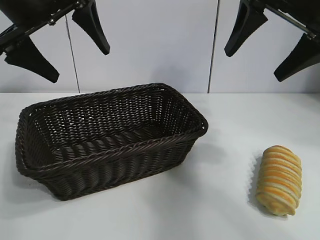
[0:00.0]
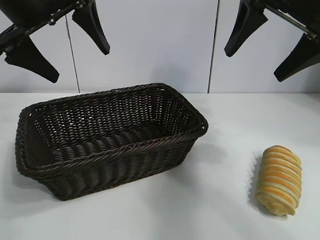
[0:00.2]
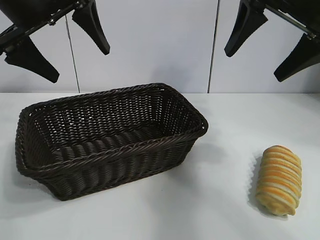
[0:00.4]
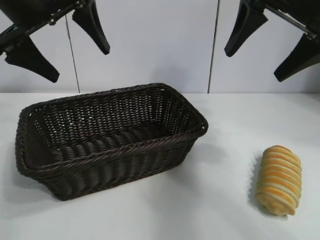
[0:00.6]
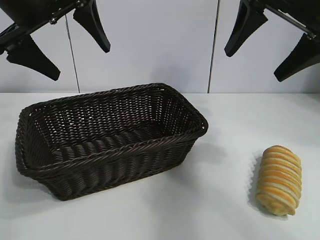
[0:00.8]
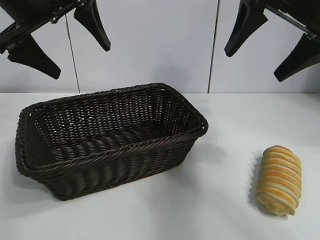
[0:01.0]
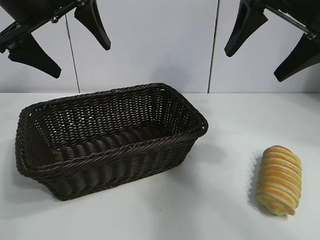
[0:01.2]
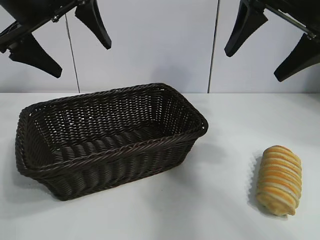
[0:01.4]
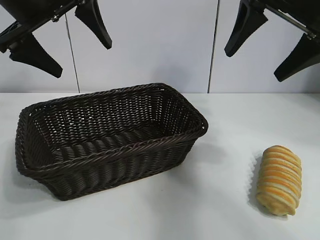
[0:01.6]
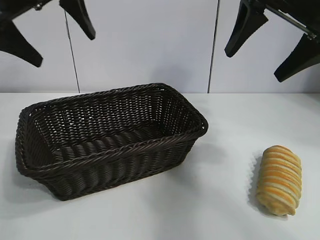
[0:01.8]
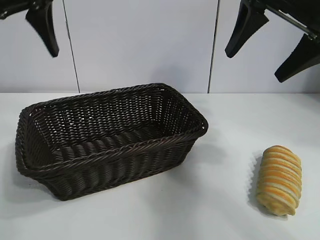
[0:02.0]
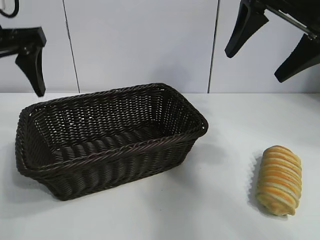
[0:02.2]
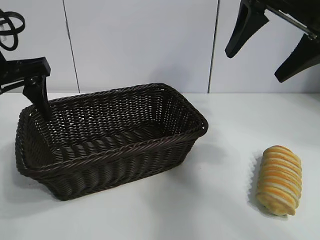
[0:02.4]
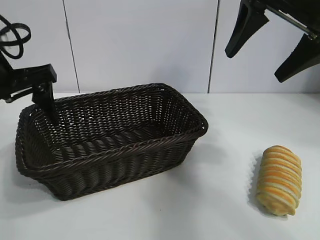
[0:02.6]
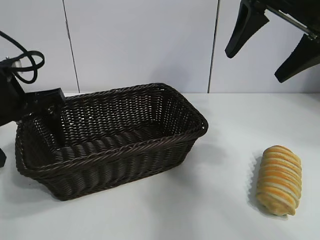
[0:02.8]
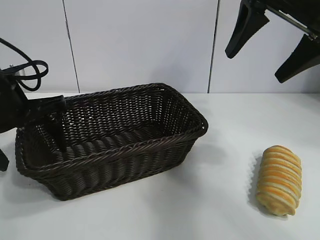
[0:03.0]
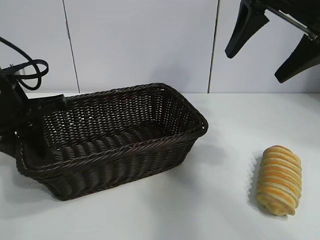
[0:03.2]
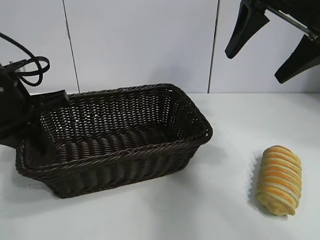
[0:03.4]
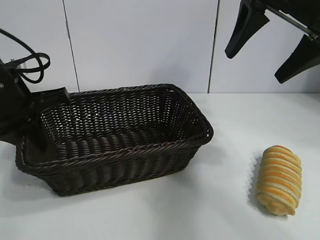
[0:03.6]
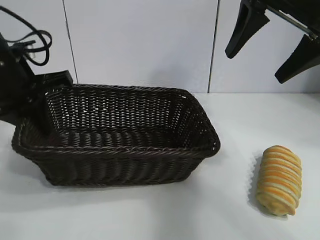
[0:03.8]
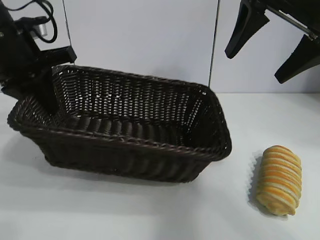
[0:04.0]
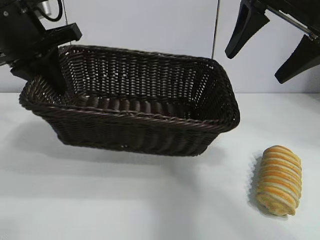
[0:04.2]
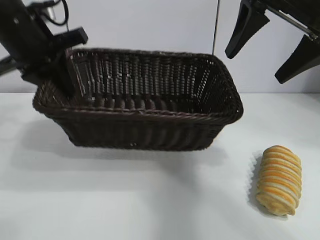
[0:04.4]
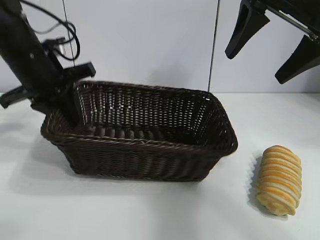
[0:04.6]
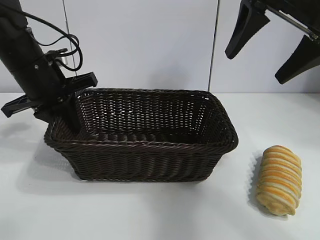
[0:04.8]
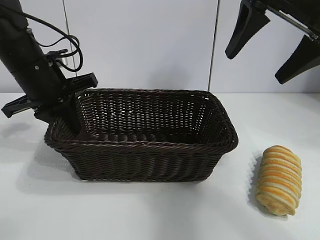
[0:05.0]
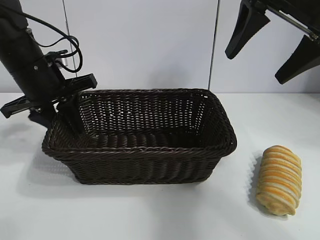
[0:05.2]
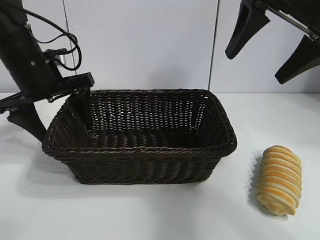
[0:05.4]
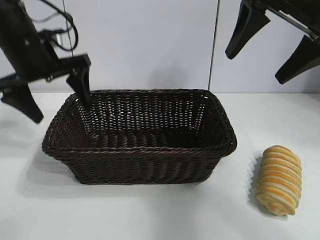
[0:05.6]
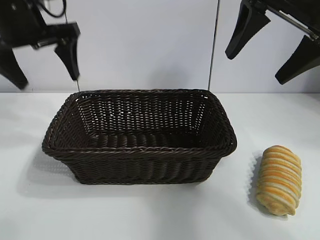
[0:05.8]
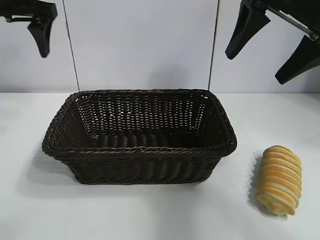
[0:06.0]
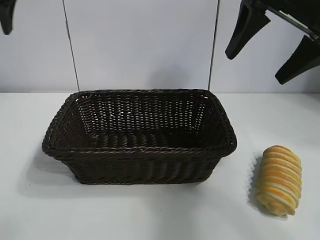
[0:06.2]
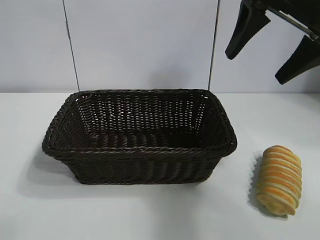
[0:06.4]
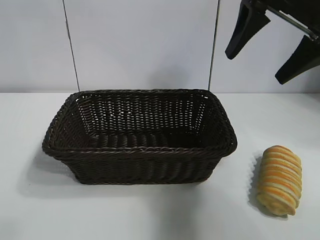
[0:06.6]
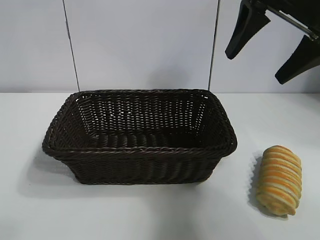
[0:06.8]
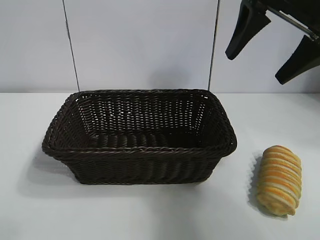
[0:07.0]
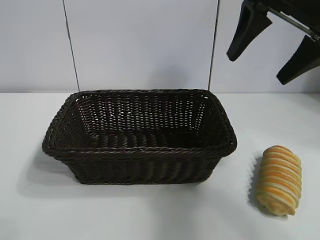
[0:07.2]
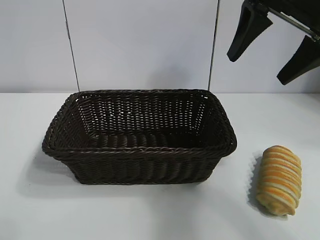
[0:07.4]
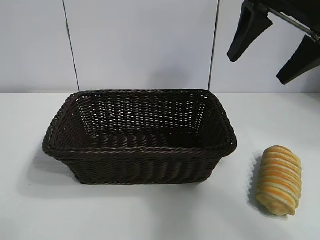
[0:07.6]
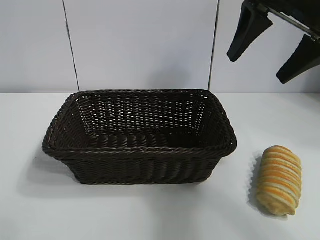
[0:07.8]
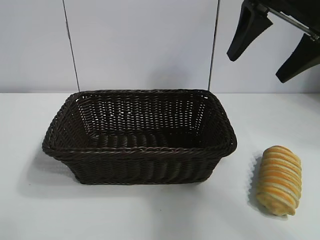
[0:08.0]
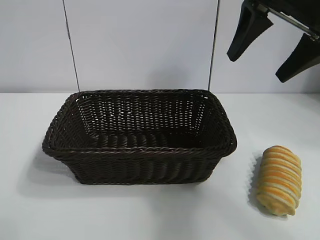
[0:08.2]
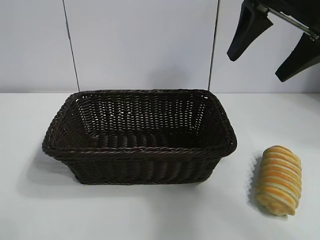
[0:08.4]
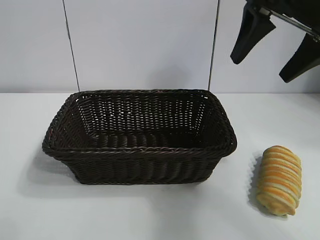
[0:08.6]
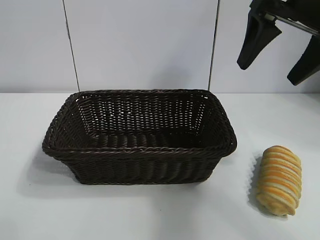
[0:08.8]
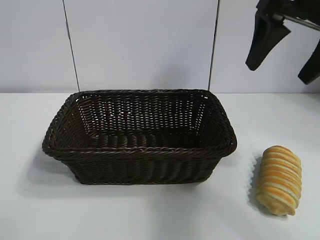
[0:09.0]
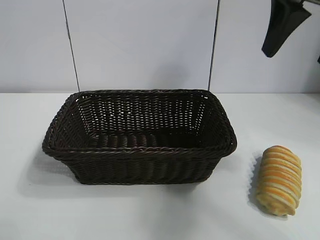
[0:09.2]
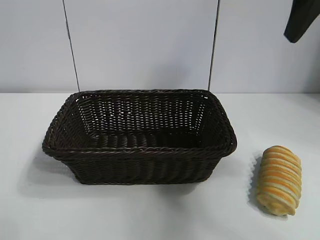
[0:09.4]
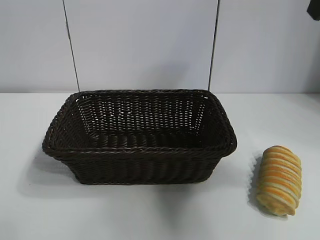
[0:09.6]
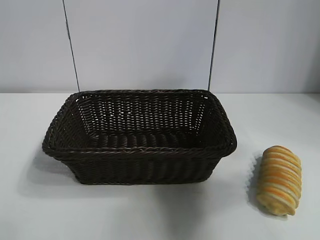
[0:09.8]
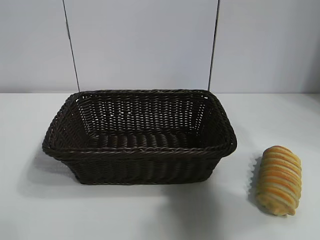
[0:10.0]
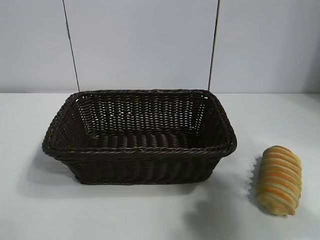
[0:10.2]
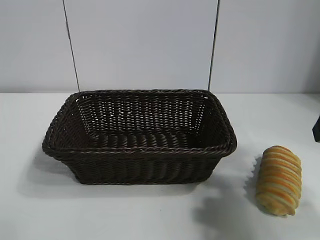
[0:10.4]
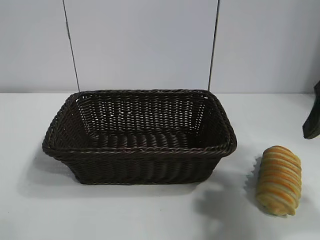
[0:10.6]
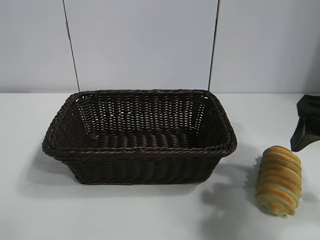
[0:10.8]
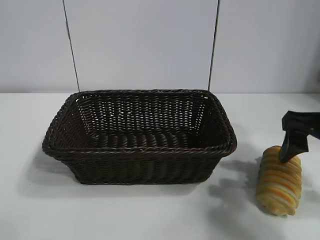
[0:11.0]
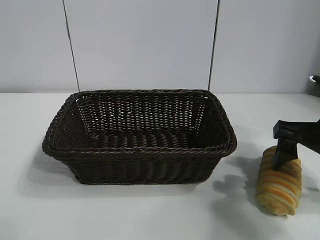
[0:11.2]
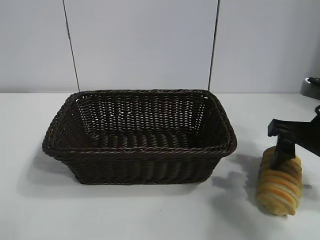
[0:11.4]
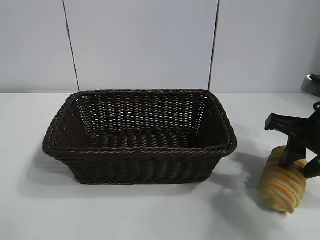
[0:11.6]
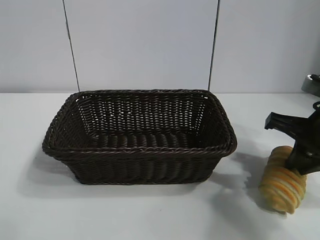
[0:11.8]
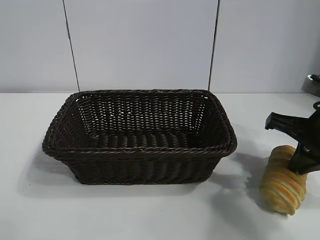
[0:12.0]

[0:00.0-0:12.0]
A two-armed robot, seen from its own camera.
Task of the whole recording: pick up the long bread and put it into the basket.
Step, 0:01.4 to 0:03.4: Grasp the basket with the left gripper.
Step, 0:03.6 to 0:05.2: Place the basket in the center of the table with the left gripper.
Step, 0:05.4 to 0:11.8: Grasp the long bread with right gripper.

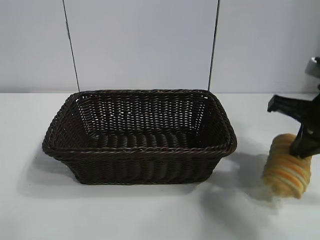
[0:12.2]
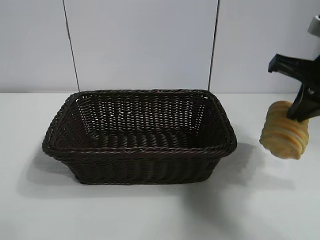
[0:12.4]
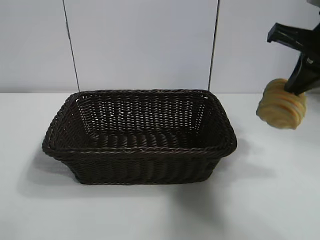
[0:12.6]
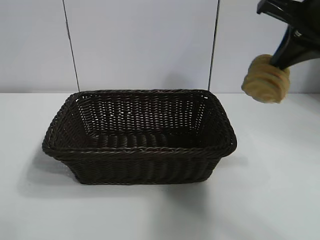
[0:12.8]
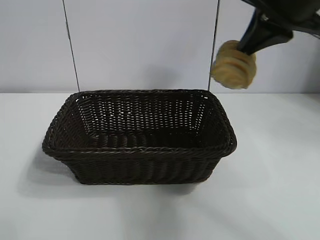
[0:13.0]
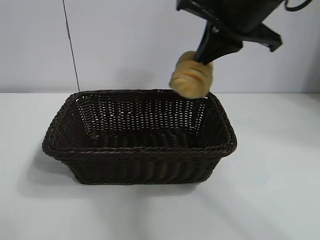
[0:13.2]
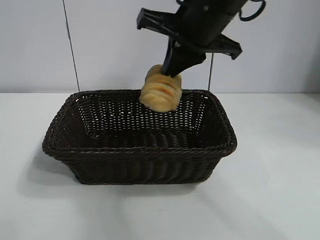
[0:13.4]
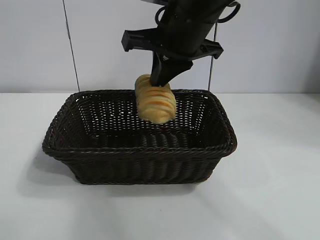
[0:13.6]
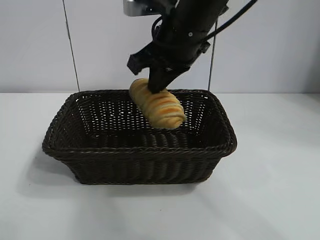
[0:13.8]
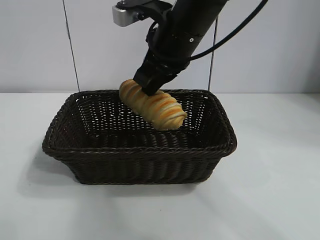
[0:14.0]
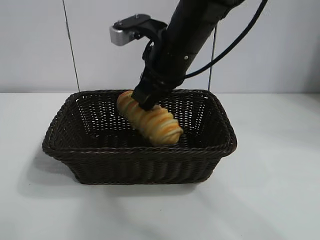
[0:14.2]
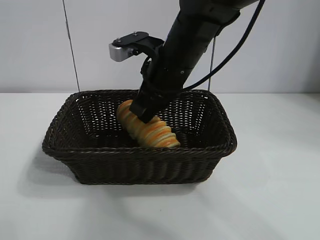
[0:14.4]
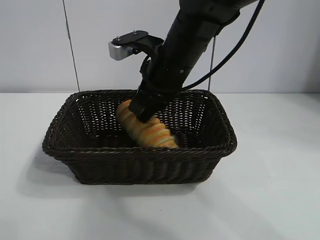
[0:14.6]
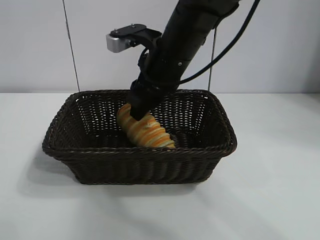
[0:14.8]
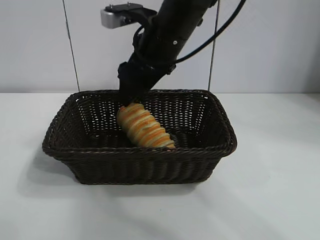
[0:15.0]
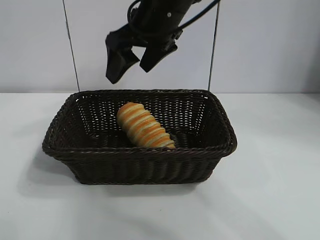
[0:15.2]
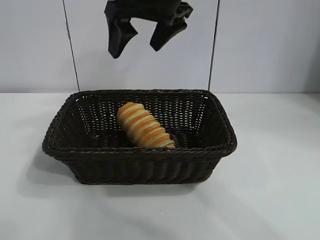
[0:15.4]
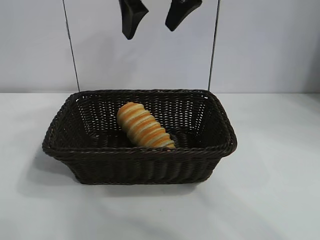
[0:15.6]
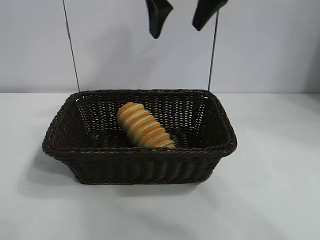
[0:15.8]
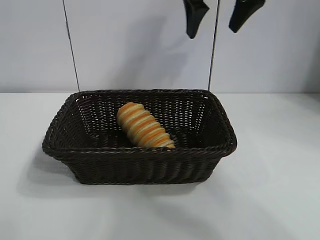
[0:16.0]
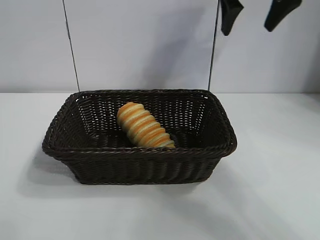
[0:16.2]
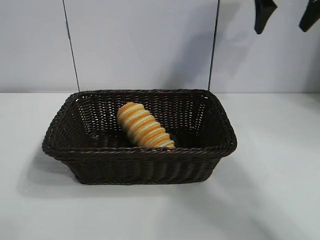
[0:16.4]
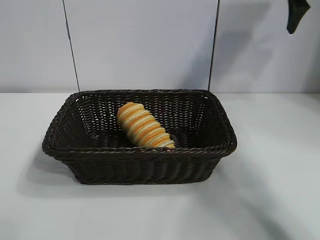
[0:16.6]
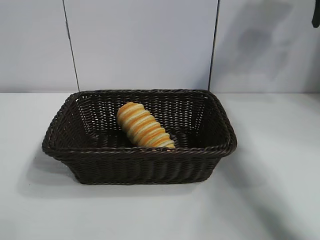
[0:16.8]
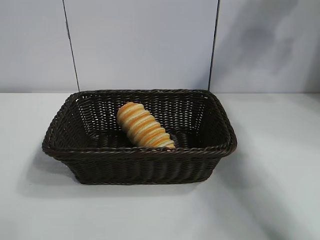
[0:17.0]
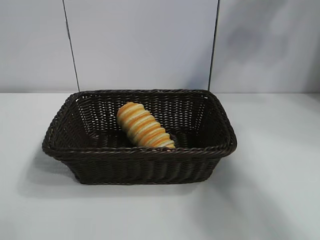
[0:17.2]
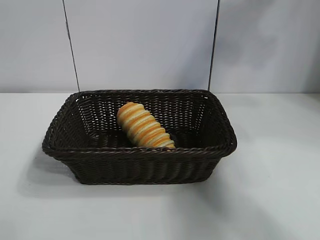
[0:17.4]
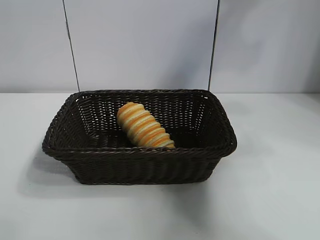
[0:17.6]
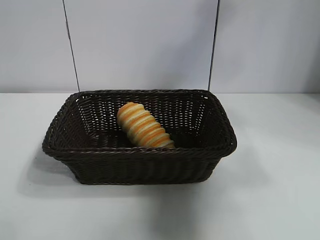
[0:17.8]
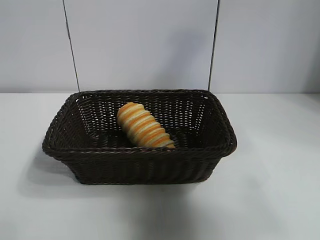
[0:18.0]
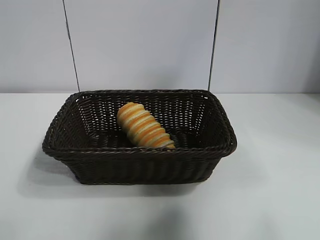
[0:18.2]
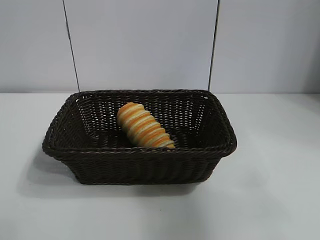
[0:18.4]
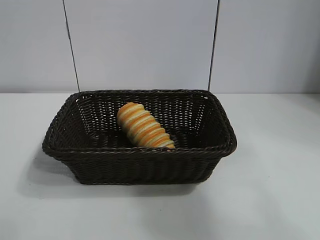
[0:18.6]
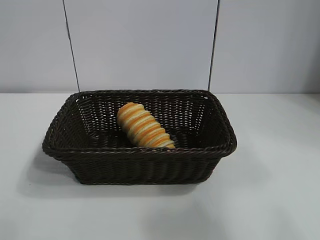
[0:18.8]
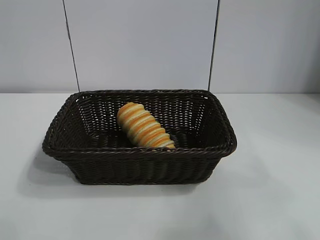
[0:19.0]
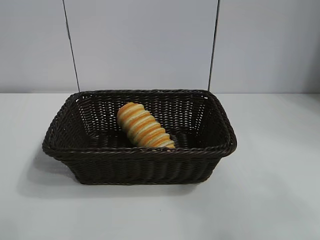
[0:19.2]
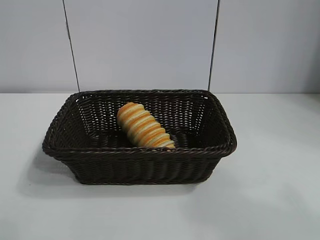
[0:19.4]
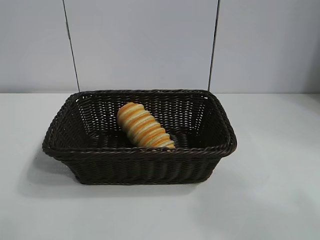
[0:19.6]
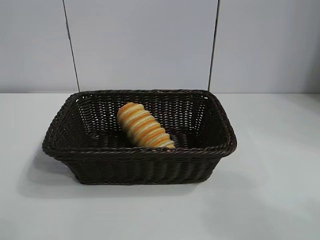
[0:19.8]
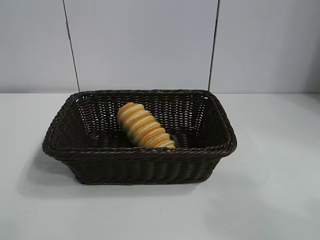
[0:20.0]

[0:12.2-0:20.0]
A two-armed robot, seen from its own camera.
Task of the whole recording: pick up the long bread and put it into the basket.
Step, 0:12.2 to 0:14.6: Place the long bread in the basket with right gripper.
